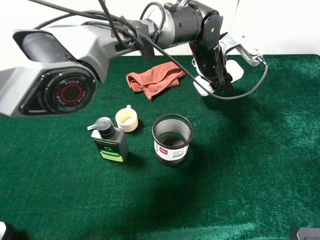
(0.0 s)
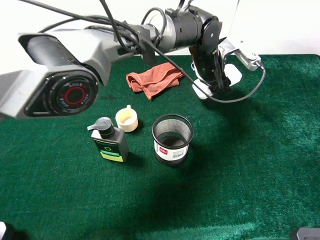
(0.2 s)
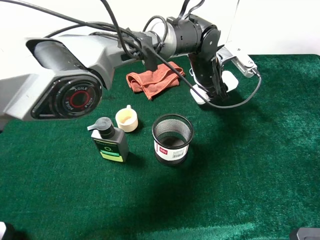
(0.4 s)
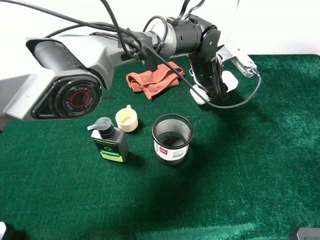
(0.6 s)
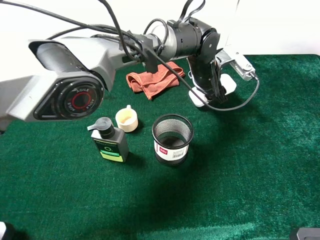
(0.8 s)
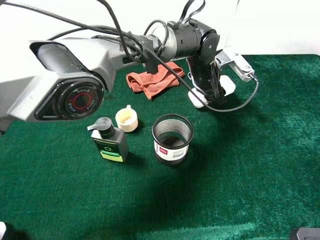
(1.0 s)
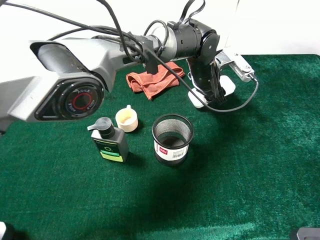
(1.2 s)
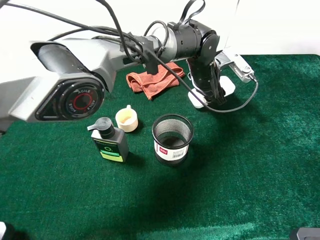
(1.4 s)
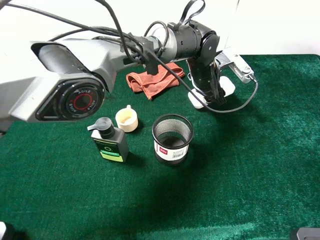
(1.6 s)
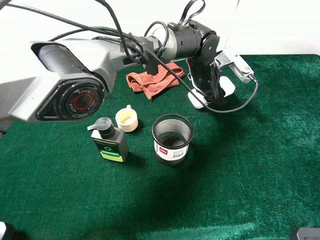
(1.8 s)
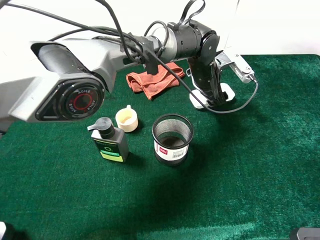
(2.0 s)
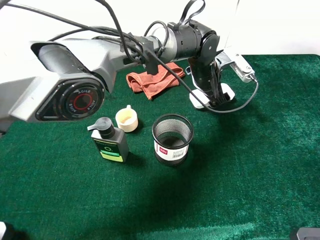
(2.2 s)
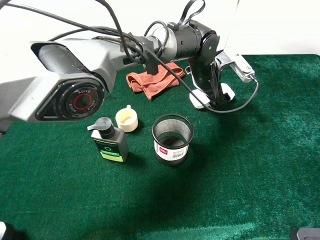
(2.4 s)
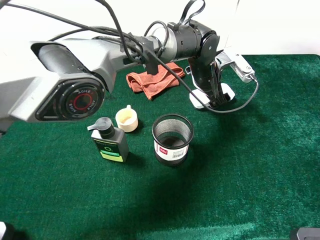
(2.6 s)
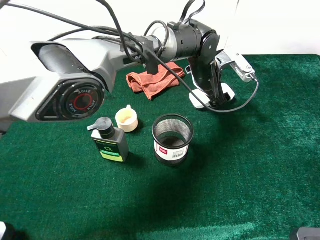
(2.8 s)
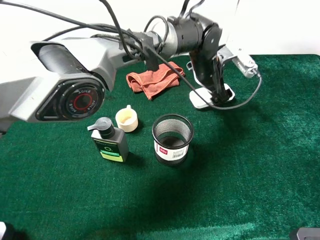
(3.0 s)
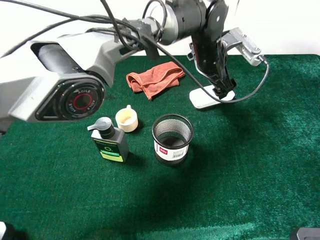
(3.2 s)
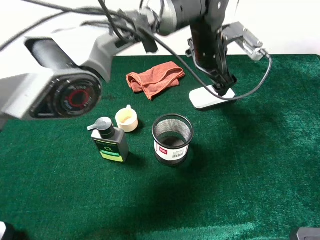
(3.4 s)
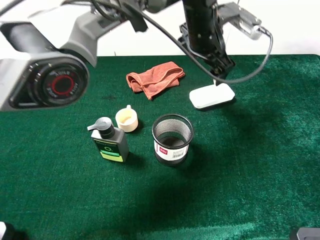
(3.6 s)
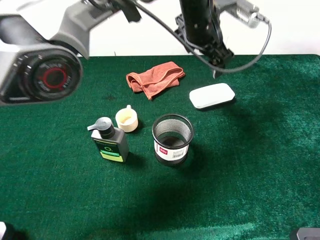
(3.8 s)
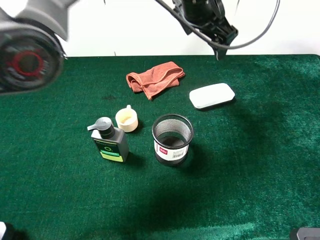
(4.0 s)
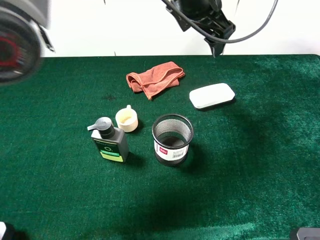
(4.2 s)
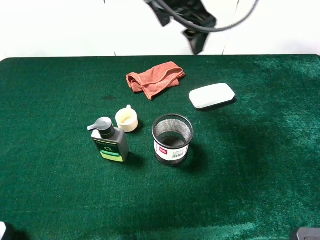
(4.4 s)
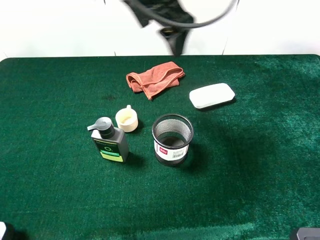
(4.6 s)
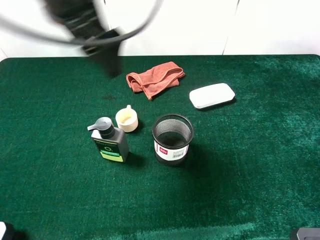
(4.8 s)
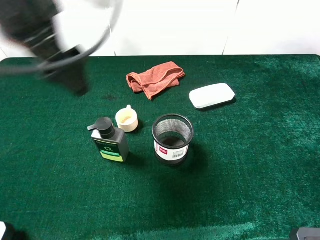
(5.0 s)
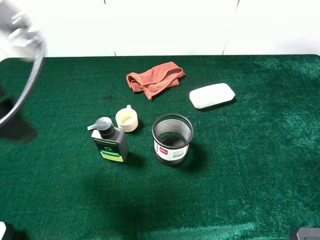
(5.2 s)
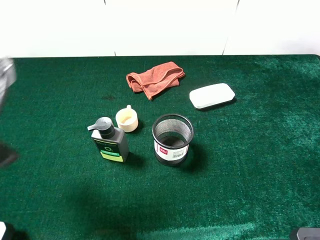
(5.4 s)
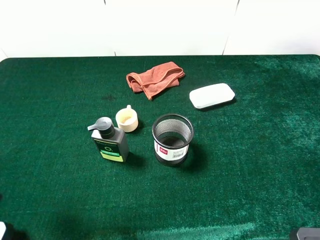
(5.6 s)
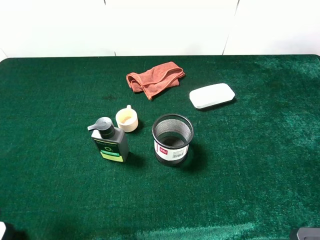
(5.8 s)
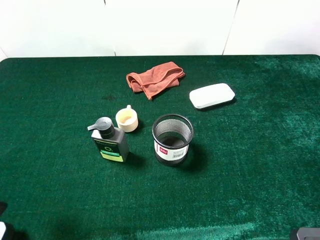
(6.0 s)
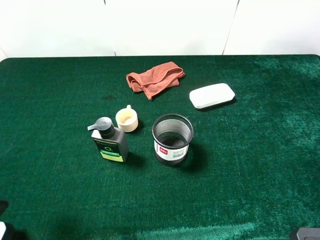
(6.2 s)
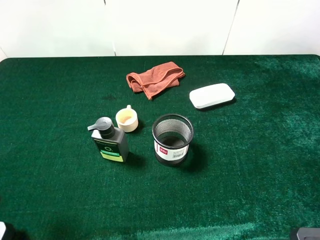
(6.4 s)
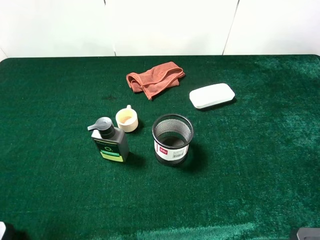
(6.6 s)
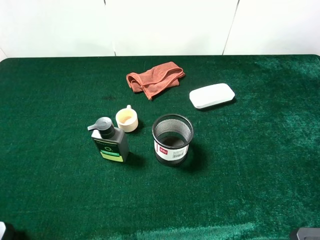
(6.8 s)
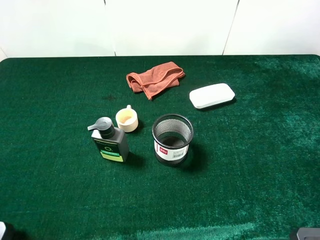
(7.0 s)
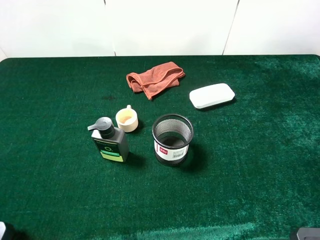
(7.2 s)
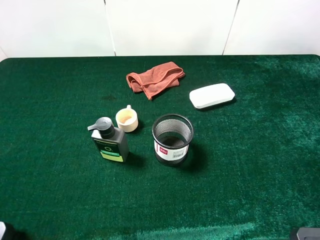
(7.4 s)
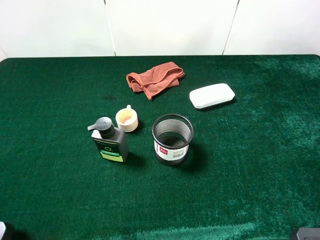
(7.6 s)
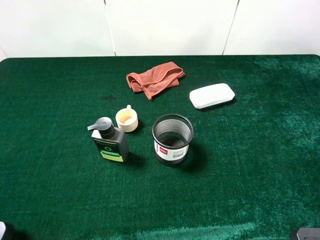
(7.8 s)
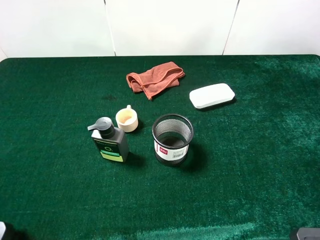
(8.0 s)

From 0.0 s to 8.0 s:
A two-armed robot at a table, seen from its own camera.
Task of the whole recording: the gripper move the object.
Step, from 0.0 s to 3.4 s: Place the white blackboard earser on the table with the left gripper.
From 1.6 s to 3.2 s: The left gripper heads upward, covering roughly 5 cm, and opens up.
From 3.2 s to 4.8 s: The left gripper shifts roughly 30 cm to the left, upward and backward.
From 4.8 s to 6.4 s: The left gripper heads backward and to the left, covering approximately 25 cm.

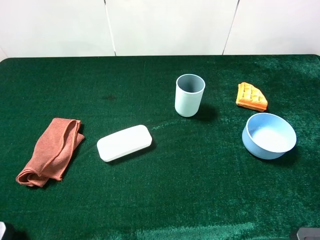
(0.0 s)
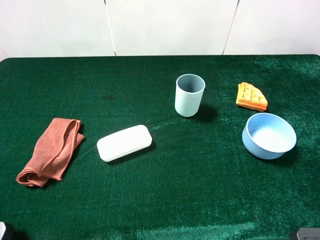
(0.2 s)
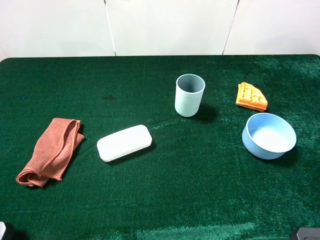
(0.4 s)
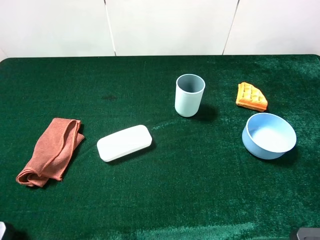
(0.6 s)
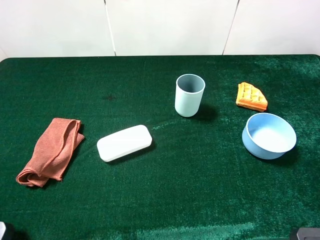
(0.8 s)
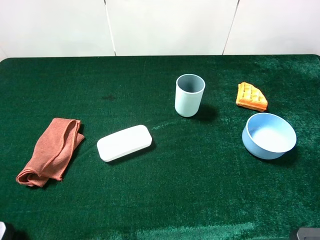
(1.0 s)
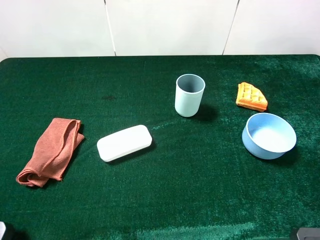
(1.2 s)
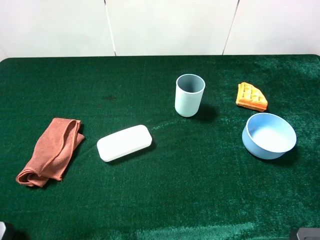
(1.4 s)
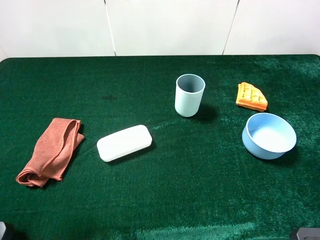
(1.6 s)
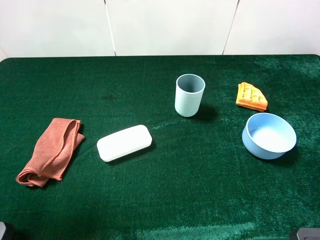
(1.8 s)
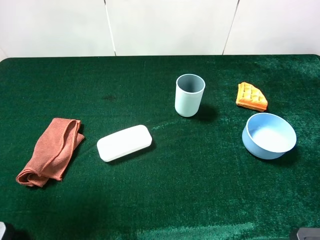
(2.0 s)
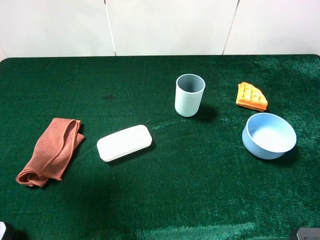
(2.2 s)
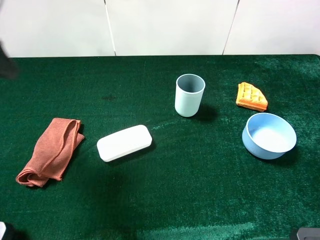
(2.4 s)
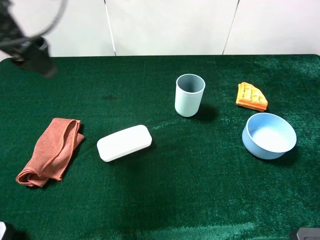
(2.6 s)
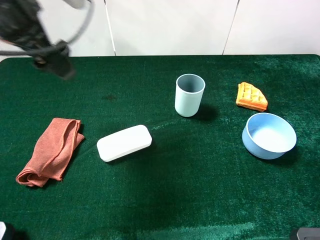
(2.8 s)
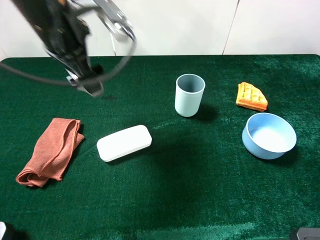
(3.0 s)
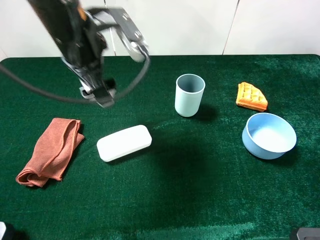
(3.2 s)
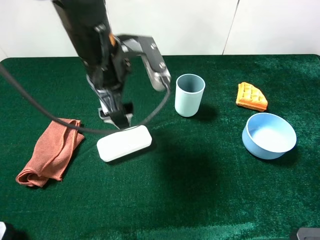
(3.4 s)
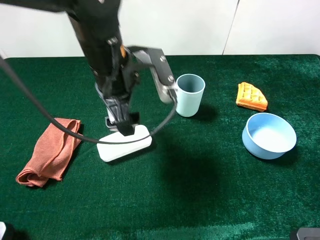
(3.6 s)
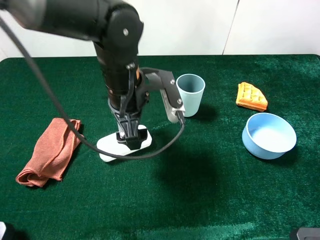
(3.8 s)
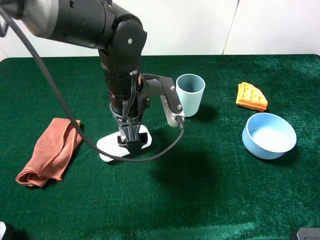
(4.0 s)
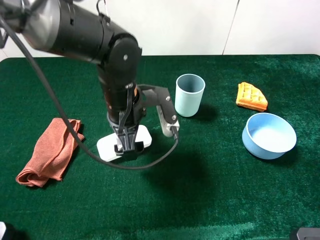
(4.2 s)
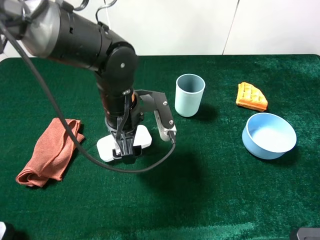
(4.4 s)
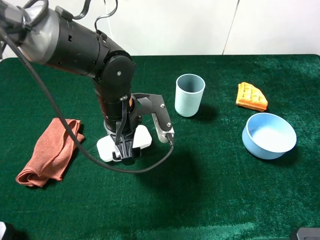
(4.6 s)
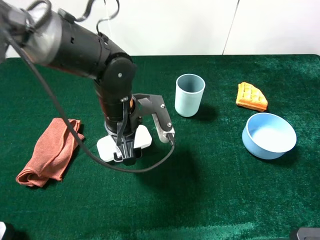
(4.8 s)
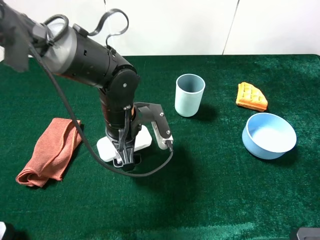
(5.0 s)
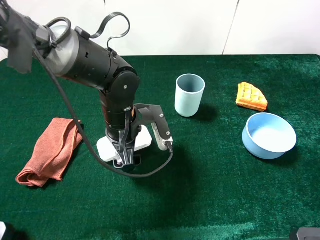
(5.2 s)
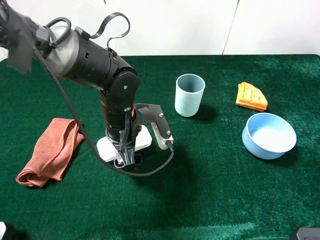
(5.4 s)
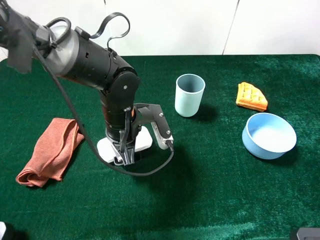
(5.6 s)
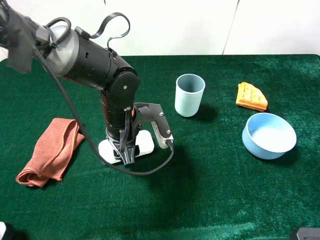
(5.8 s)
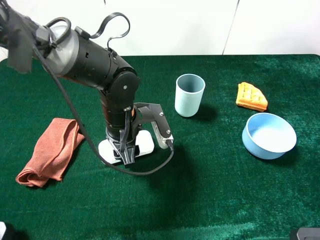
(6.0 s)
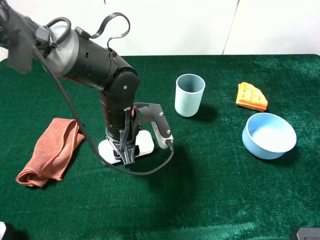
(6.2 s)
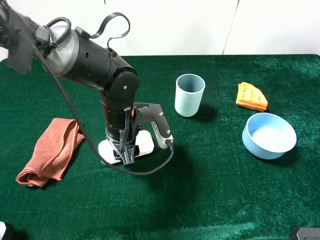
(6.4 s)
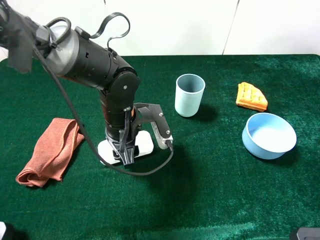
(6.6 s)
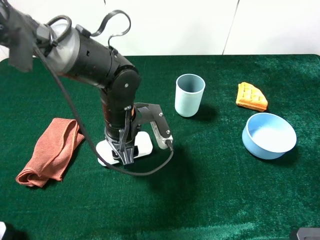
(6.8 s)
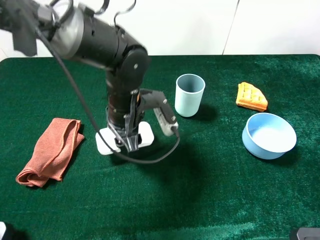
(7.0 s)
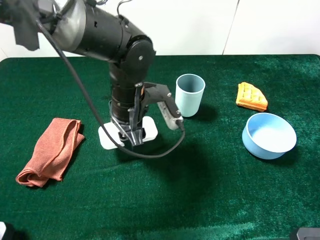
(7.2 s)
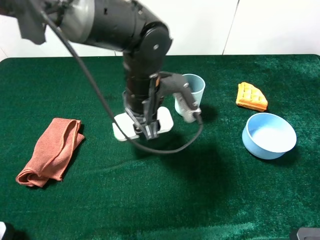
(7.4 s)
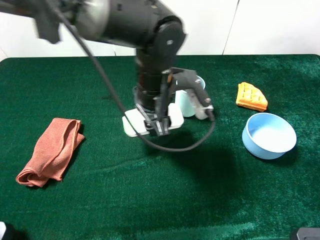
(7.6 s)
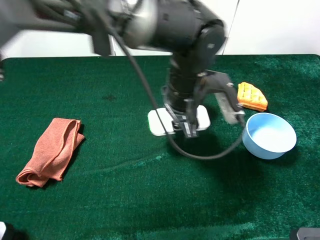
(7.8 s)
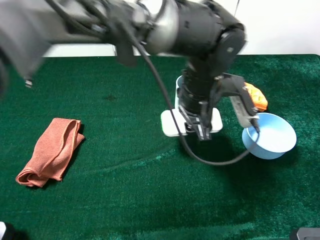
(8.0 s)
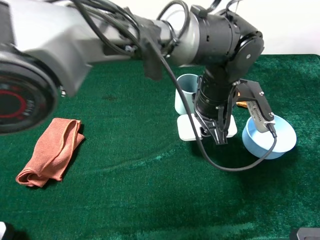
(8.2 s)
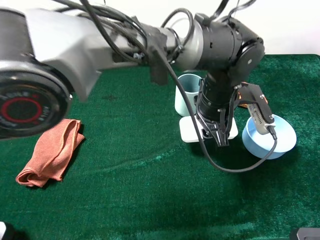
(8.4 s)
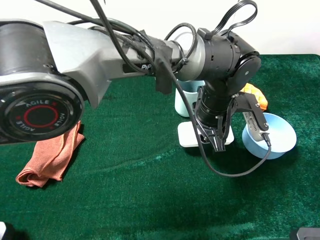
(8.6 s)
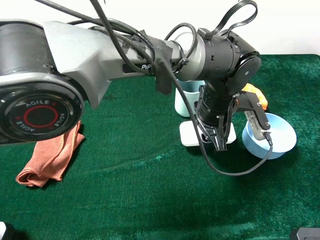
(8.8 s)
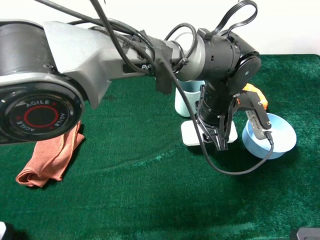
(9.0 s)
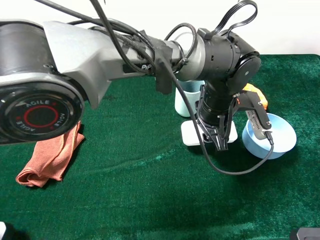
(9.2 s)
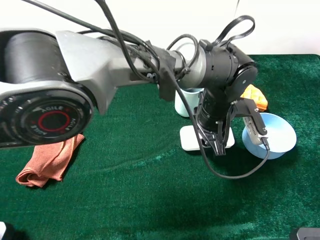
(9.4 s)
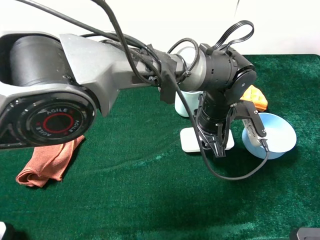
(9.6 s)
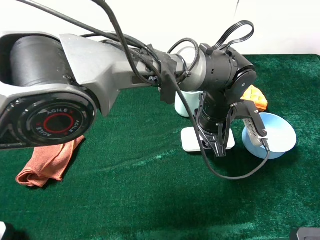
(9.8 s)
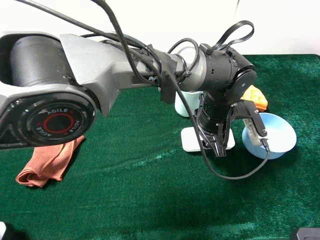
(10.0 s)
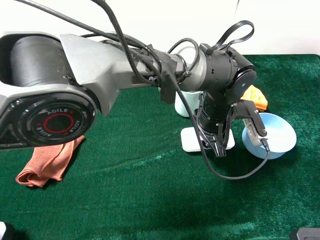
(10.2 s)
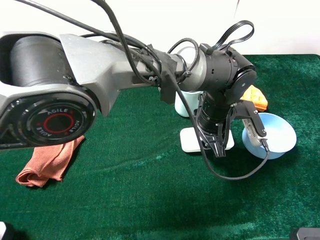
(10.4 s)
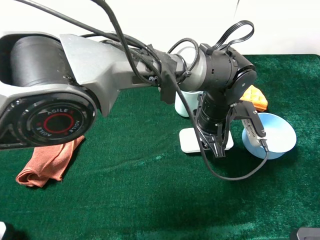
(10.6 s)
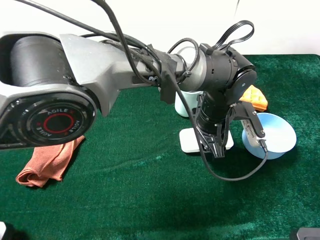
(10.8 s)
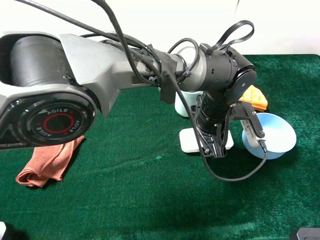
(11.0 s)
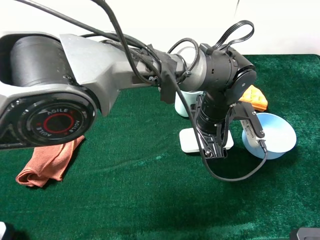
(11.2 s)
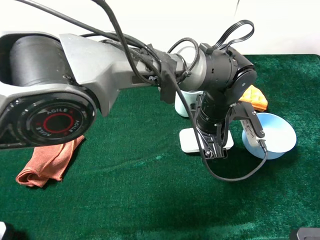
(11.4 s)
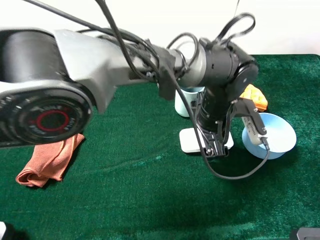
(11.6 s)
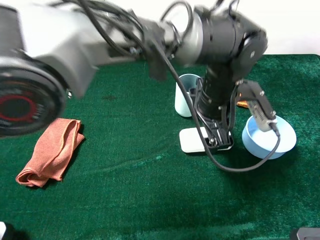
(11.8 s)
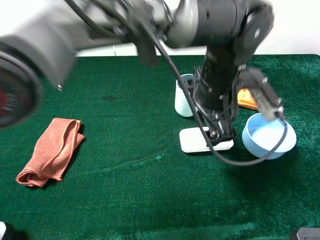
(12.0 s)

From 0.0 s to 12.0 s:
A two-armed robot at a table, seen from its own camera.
Task of the whole recording: the gripper move the object.
Step, from 0.0 s to 6.4 s: Grasp the white blackboard earser with the left gripper.
Step, from 6.6 s to 11.8 s: Place the white blackboard earser on the table with the left gripper.
From 1.6 s to 3.0 s: The left gripper travels forward and to the right by approximately 30 cm.
From 3.0 s to 4.4 s: The left gripper travels downward and to the right by approximately 15 cm.
From 4.4 s to 6.0 s: The left gripper closes up.
From 6.0 s to 7.6 s: The left gripper goes roughly 10 cm to the right and upward.
From 7.6 s to 9.0 s: The left gripper moves to the right, approximately 10 cm.
From 10.4 s to 12.0 s: The left gripper heads upward, covering roughly 10 cm, and opens.

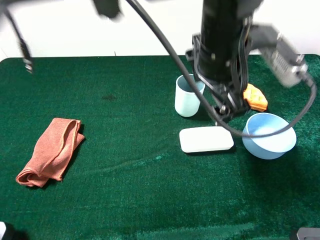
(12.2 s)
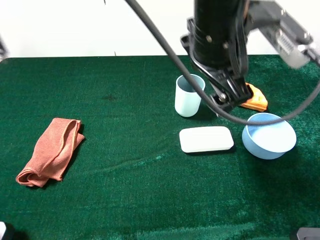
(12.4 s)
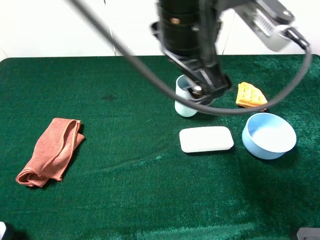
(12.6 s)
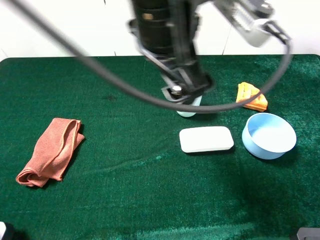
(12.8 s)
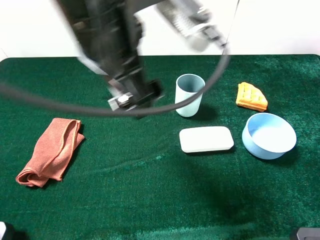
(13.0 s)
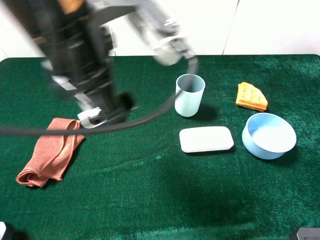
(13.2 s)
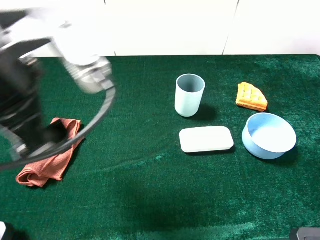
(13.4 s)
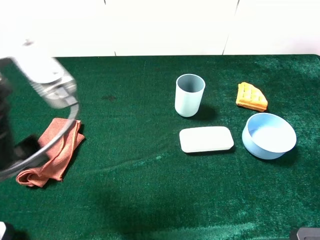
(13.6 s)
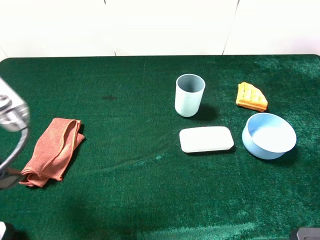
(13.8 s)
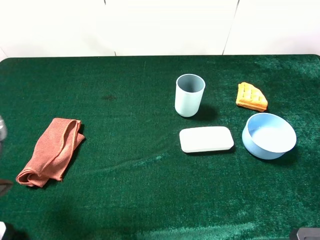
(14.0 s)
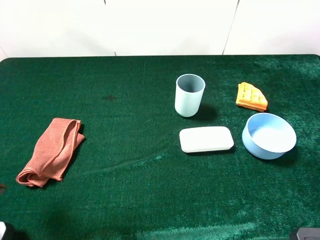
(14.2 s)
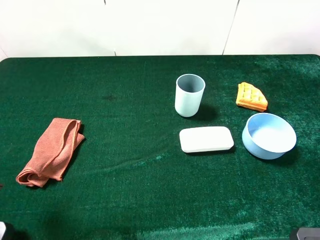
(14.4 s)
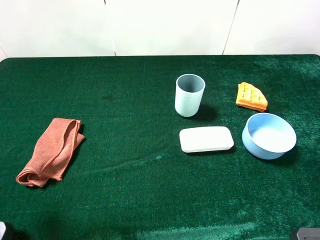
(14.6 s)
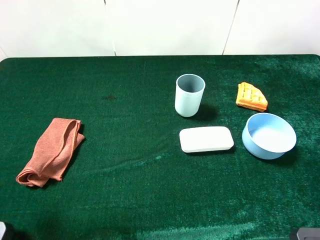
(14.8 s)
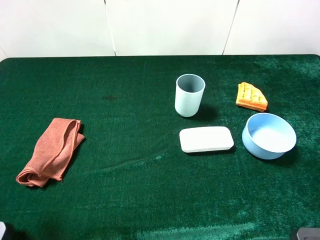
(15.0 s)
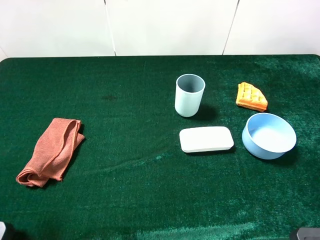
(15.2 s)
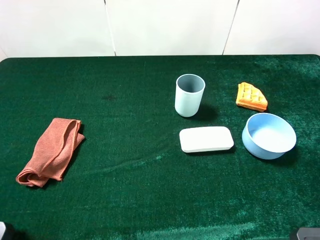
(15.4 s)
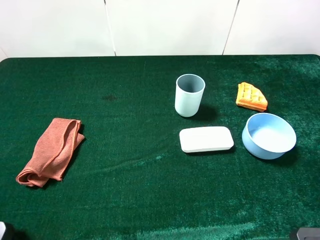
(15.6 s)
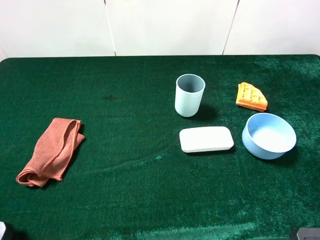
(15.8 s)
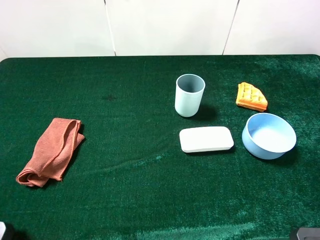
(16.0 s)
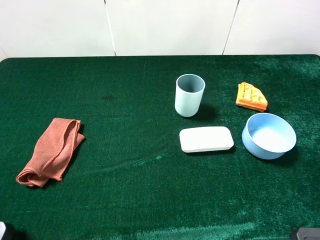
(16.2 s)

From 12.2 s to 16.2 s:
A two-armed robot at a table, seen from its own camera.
Task of the whole recording: the gripper move the object.
From 12.2 s to 13.6 s: The left gripper heads to the left and backward, covering some 30 cm.
From 13.6 s to 14.8 s: The left gripper shifts about 10 cm to the left.
